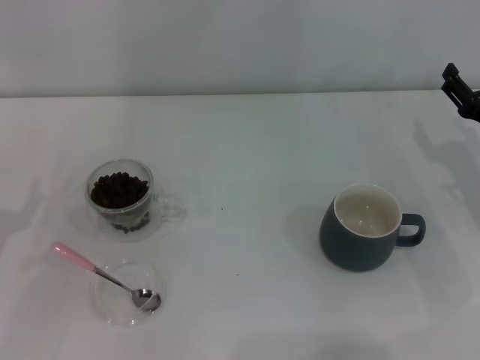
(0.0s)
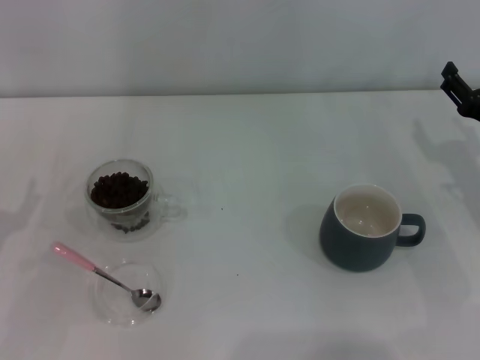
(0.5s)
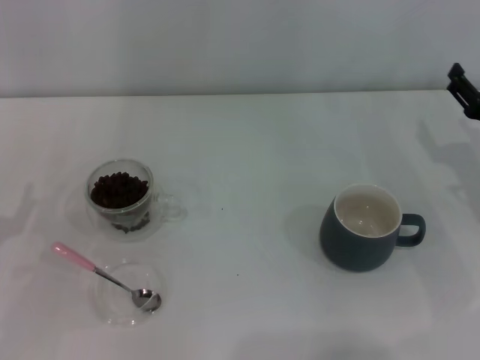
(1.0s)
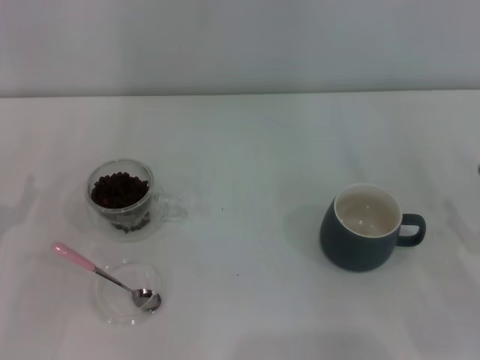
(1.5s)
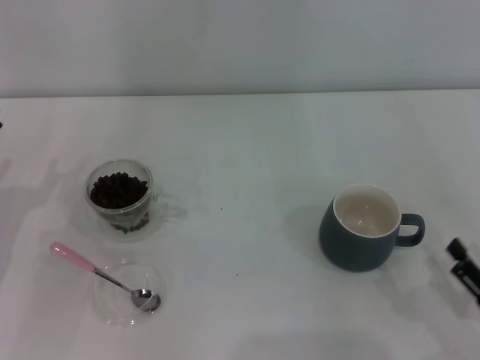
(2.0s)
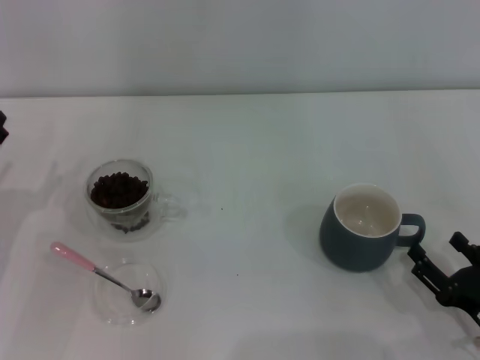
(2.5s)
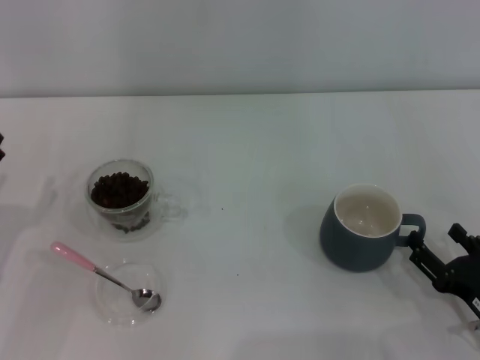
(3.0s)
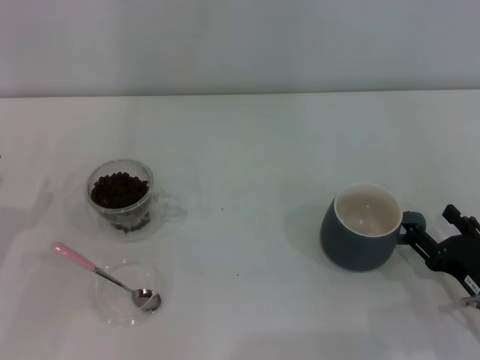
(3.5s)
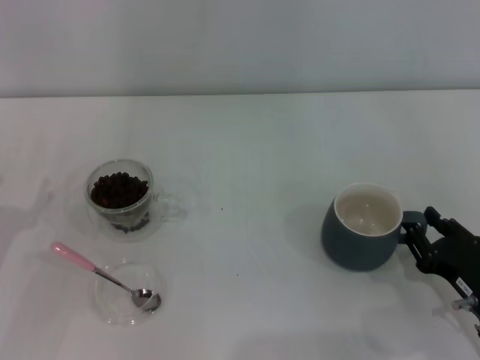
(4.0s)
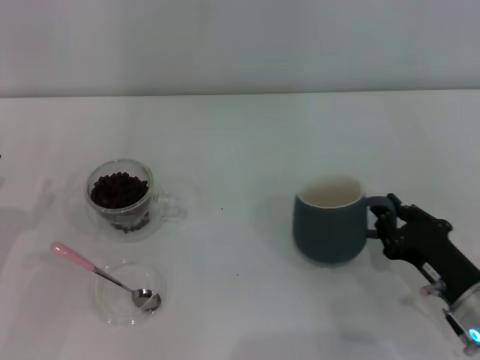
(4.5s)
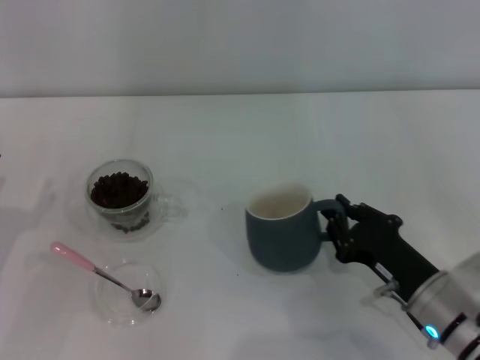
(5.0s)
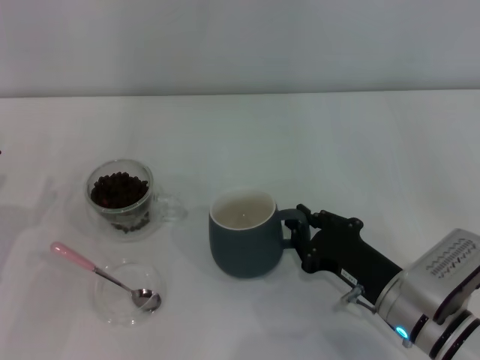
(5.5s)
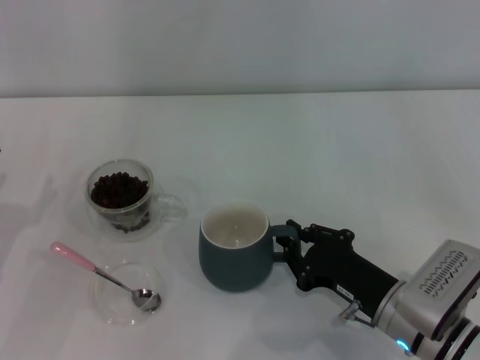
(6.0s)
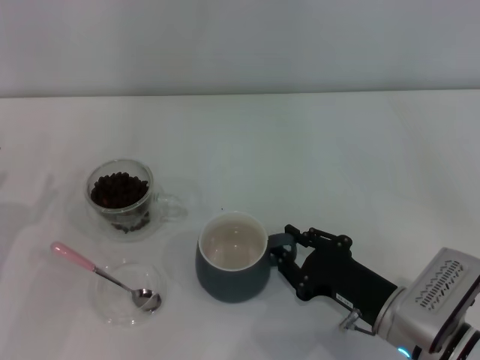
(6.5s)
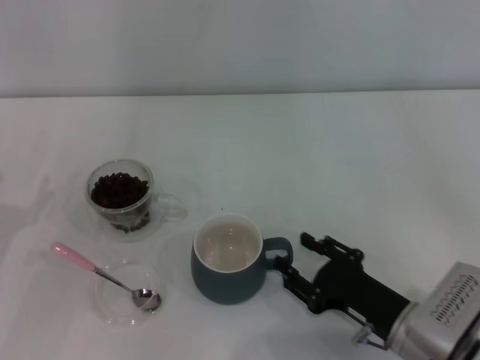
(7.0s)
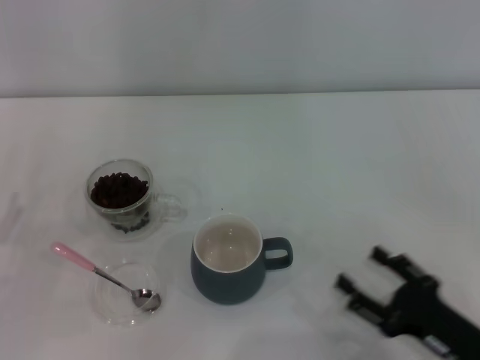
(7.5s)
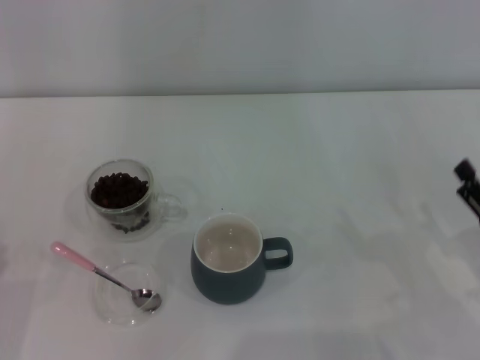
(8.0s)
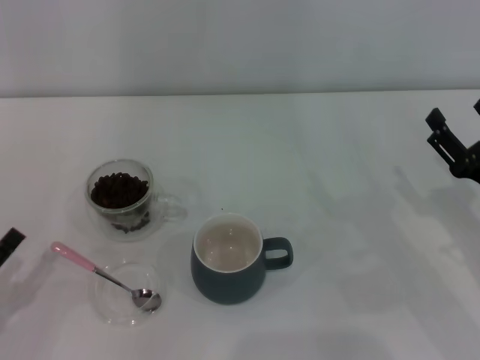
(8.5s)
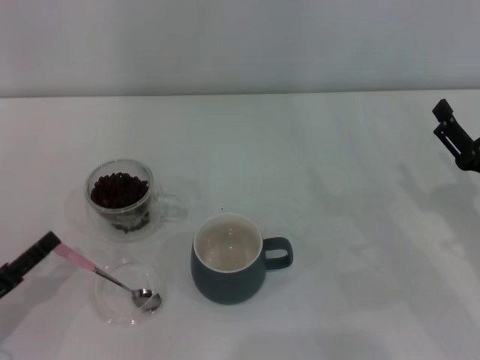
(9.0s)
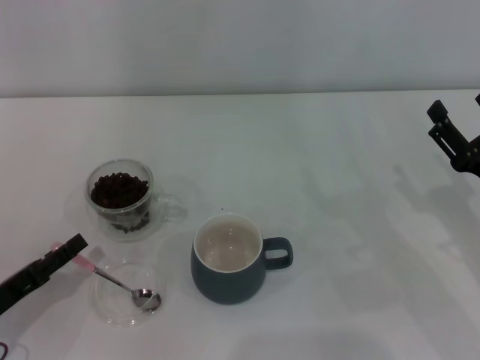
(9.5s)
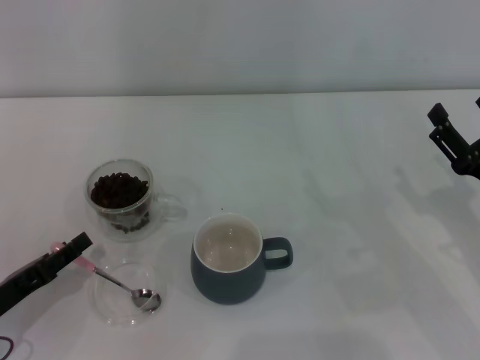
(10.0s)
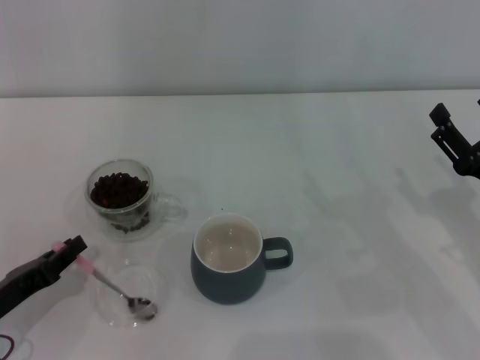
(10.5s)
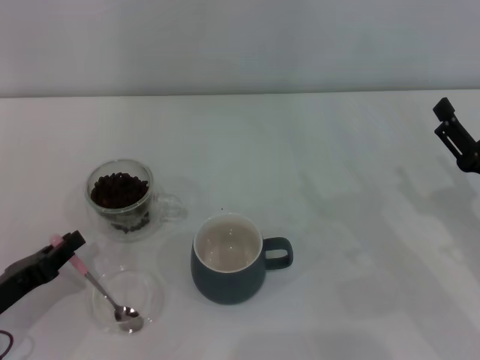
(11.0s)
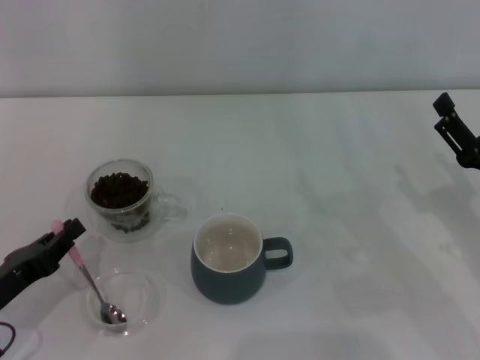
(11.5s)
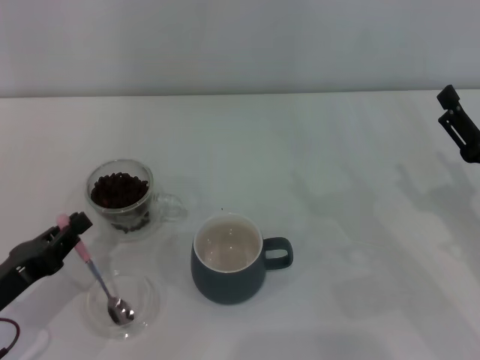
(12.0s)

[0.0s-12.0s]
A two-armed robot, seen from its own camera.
Task of the whole recording: Use a pink spoon to take out the coffee beans from the glass and pour them into the gray cup.
Step, 0.0s to 7.0s: Move the cup to the center of view with the left gripper.
0.0s to 2.0s: The right gripper travels backward by some 20 cm.
2.0s to 4.0s: The right gripper goes roughly 5 cm forward.
4.0s to 6.0s: The right gripper goes approximately 10 cm to the left, and closes its fingers.
6.0s to 8.0s: The left gripper moves backward, about 10 cm. The right gripper shifts some 15 cm to the right, and opens.
8.0s to 10.0s: The grippers both shift forward by some 5 cm.
10.0s to 12.0s: The left gripper closes its fingers.

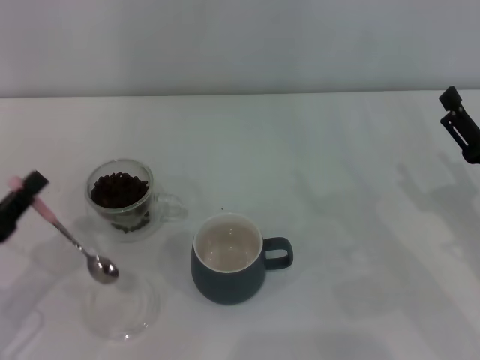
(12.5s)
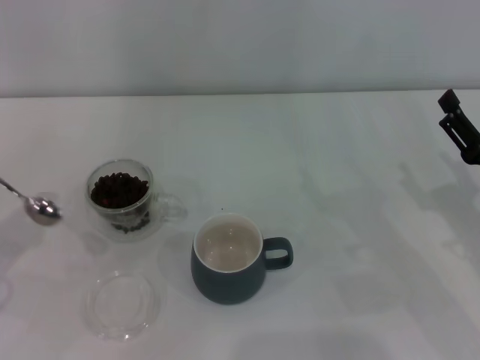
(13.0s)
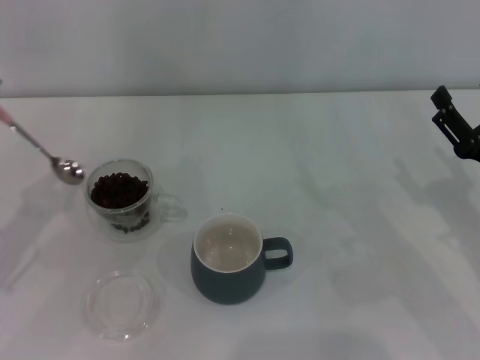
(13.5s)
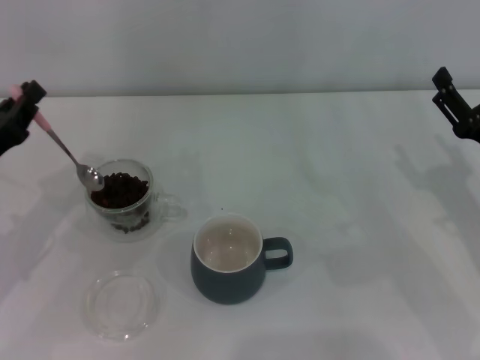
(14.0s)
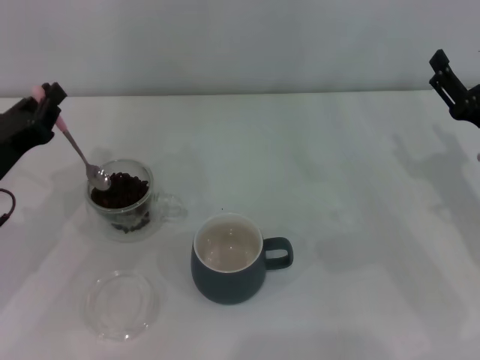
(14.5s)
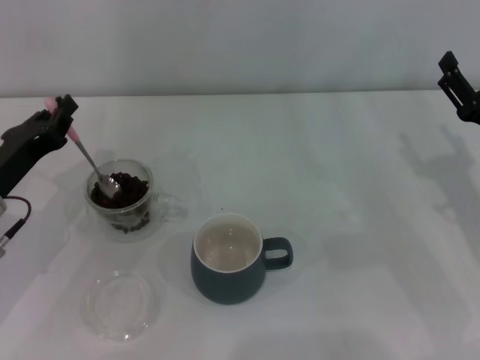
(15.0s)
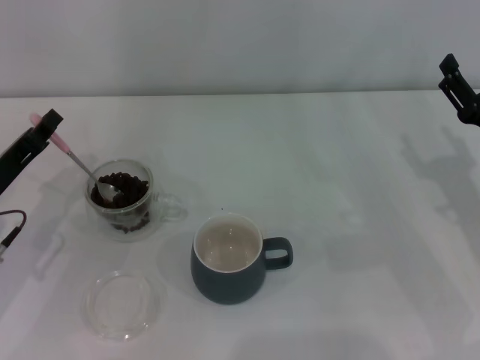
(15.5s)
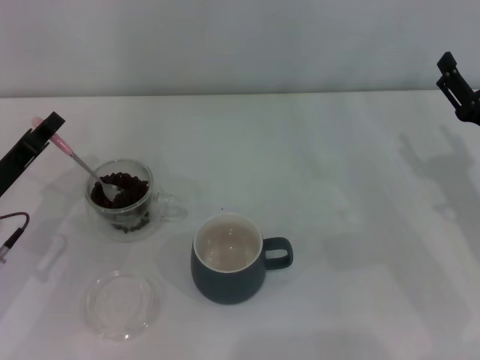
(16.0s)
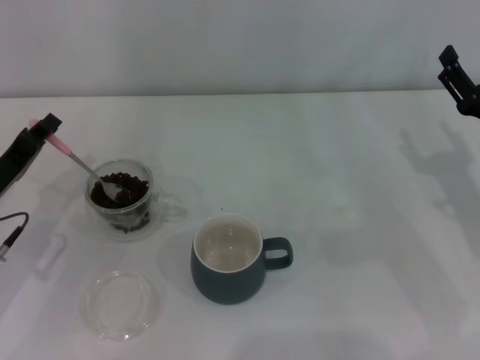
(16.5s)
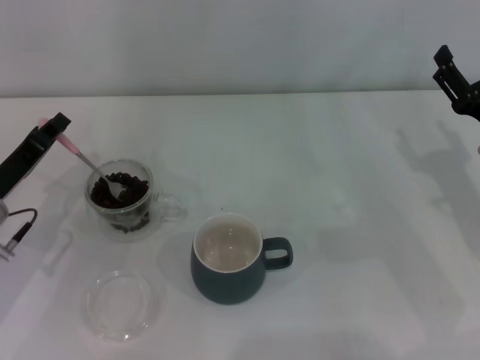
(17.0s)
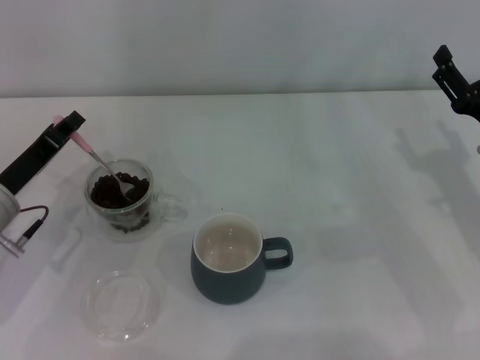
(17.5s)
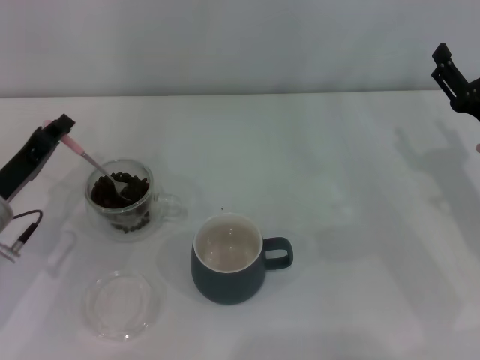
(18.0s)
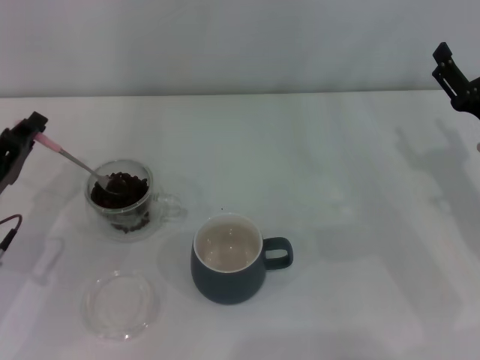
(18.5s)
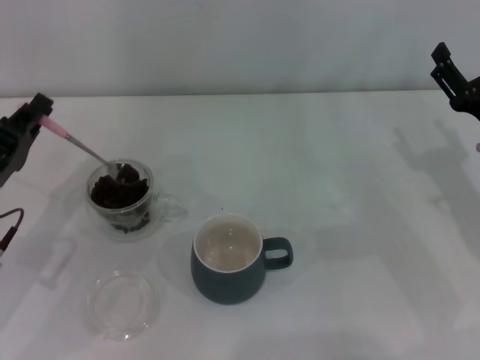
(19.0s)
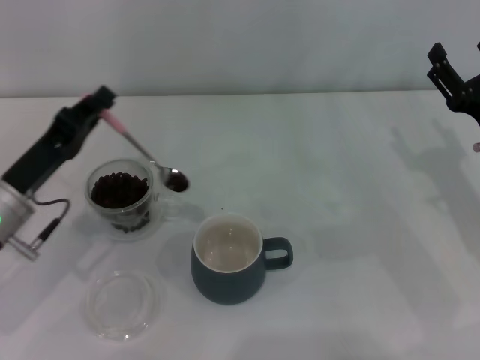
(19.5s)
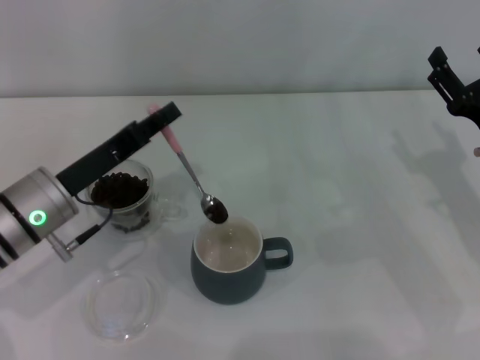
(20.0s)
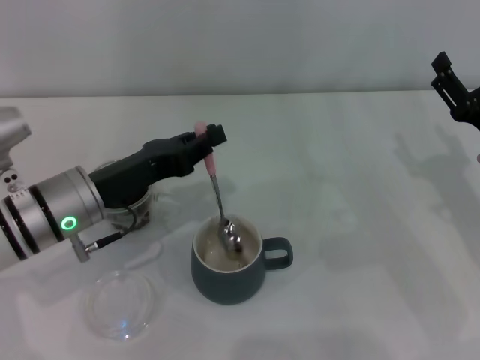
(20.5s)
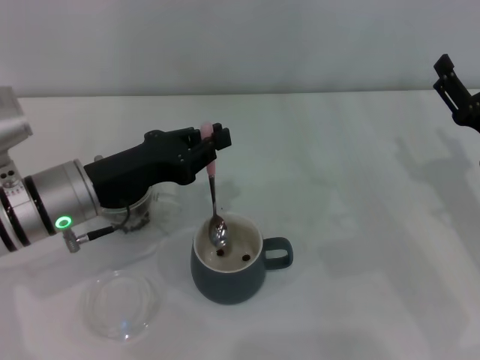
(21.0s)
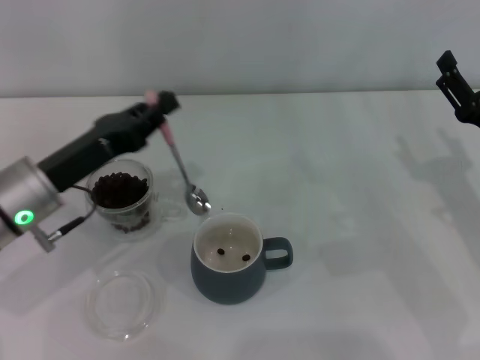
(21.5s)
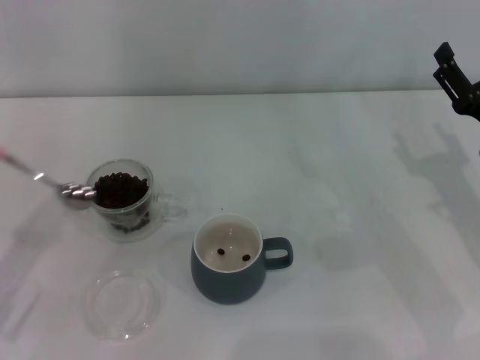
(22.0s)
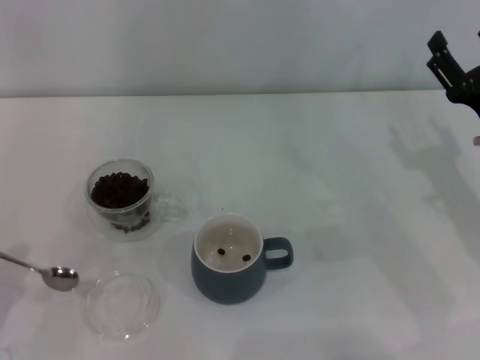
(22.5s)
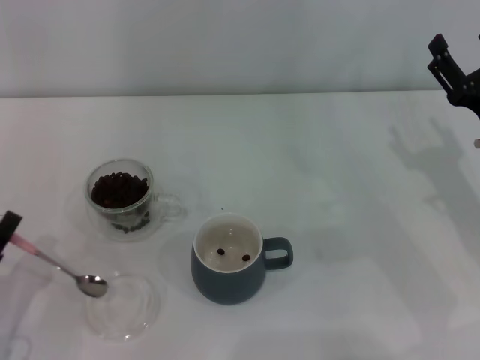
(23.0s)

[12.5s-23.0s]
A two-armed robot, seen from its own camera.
Task of the whole recording: Use a pink spoon to take out the coffee beans from the glass and pour them into the gray cup.
Step, 13.0s to 21.0s: Scoop a spoonful of beans into the cup with the right gripper.
12.5s to 14.5s: The left gripper goes some 10 cm forward; the right gripper travels forward by about 5 cm.
16.5s to 19.0s: The grippers make only small movements.
19.0s to 21.0s: The left gripper is displaced to the right by about 10 cm.
21.0s to 23.0s: The left gripper is displaced backward, to the left and downward by about 20 cm.

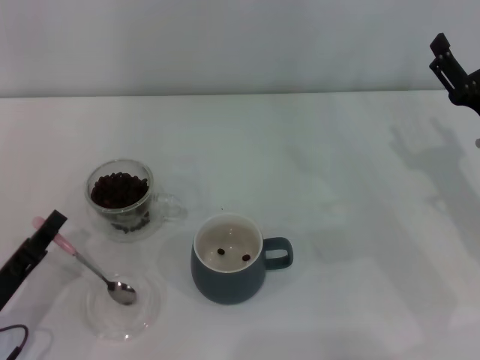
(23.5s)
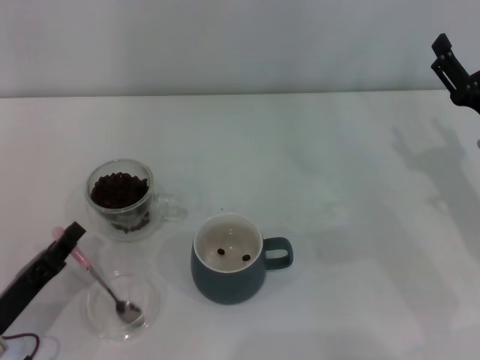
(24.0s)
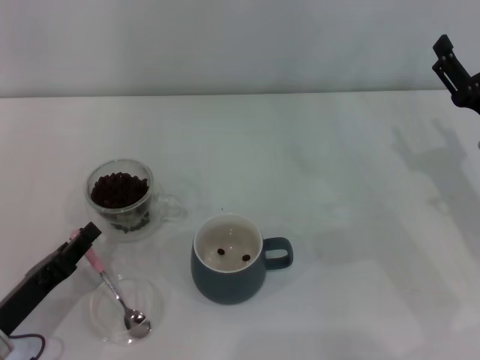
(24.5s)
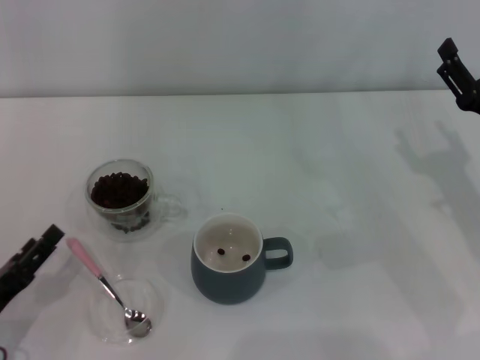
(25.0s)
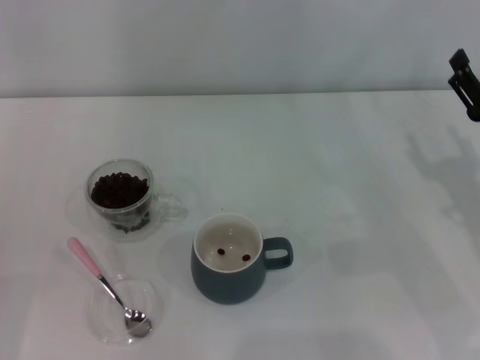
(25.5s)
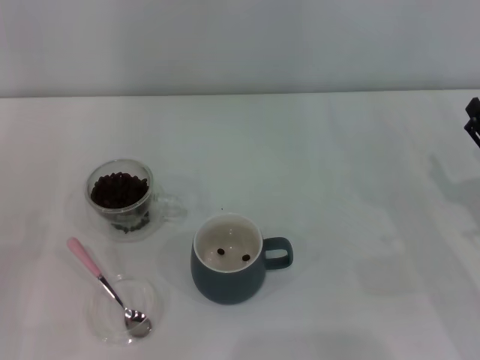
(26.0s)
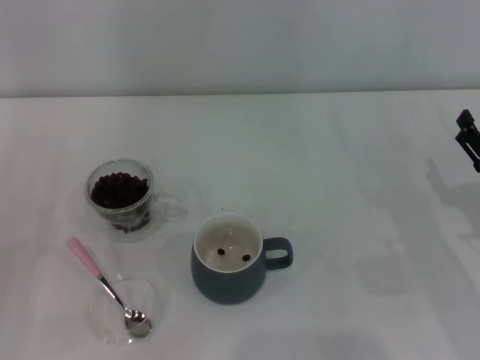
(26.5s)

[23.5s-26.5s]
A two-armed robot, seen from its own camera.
Task of the whole recording: Use a pink spoon to take out the coffee beans from the glass and pour them into the gray cup.
23.5s to 25.0s: The left gripper opens.
25.0s to 26.5s: The right gripper changes place by approximately 5 cm. Meanwhile the left gripper moves to the left, some 5 cm, and opens up.
